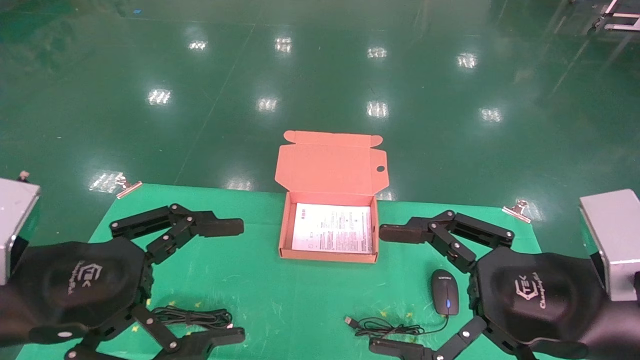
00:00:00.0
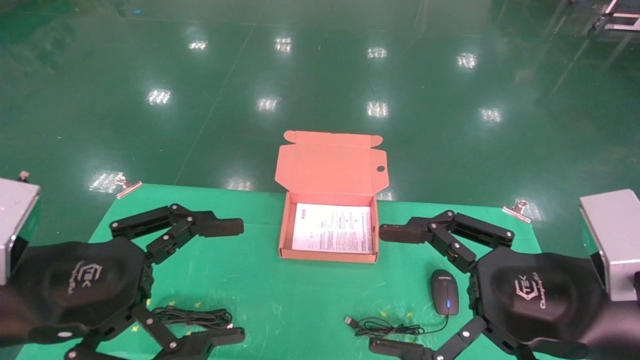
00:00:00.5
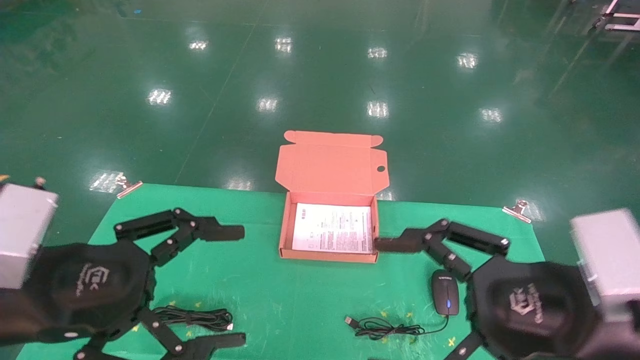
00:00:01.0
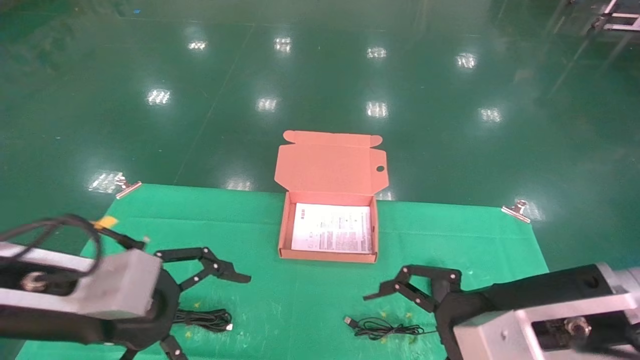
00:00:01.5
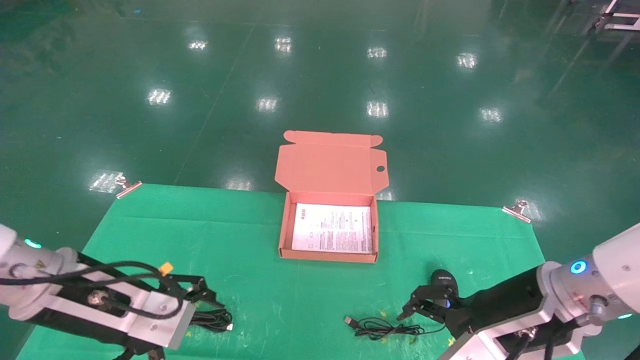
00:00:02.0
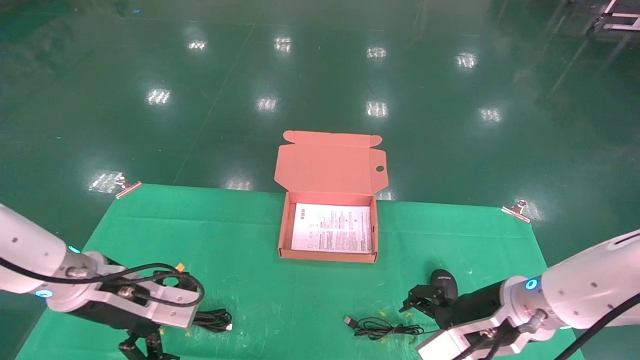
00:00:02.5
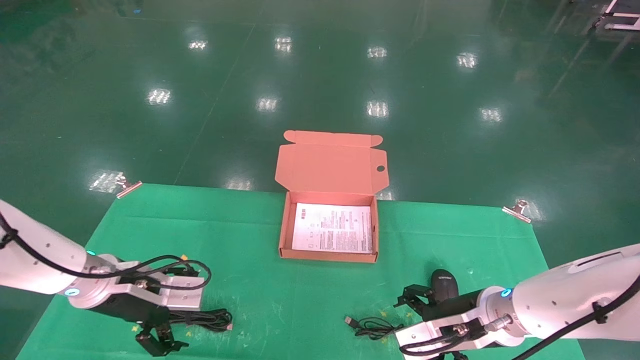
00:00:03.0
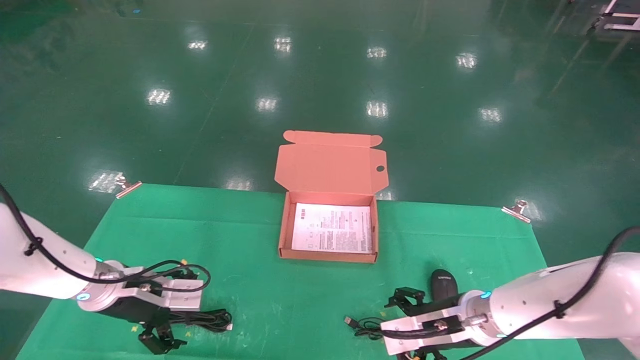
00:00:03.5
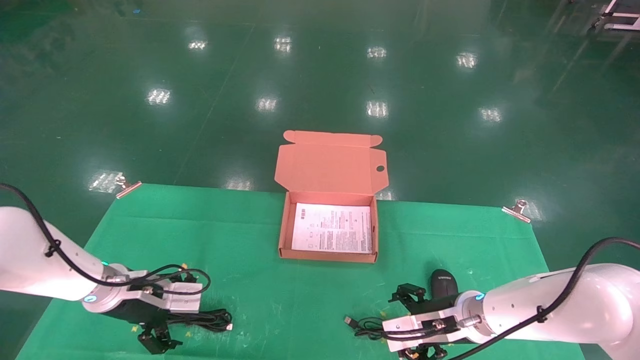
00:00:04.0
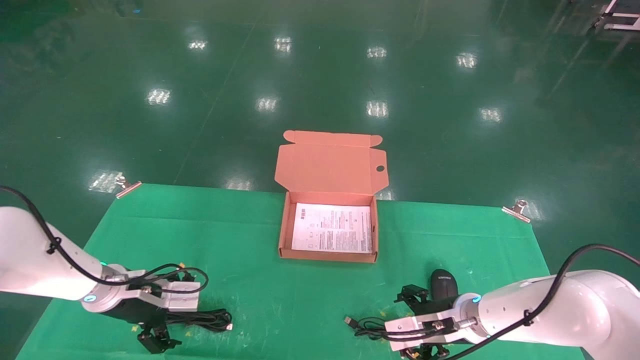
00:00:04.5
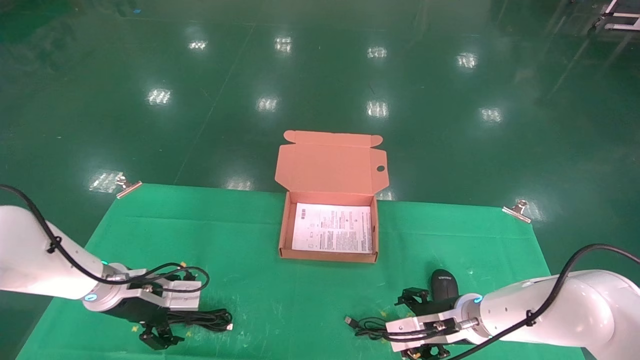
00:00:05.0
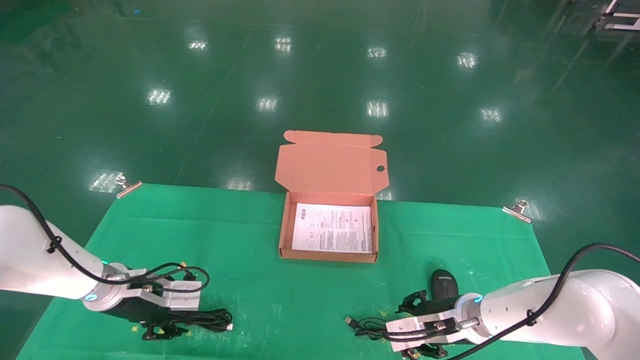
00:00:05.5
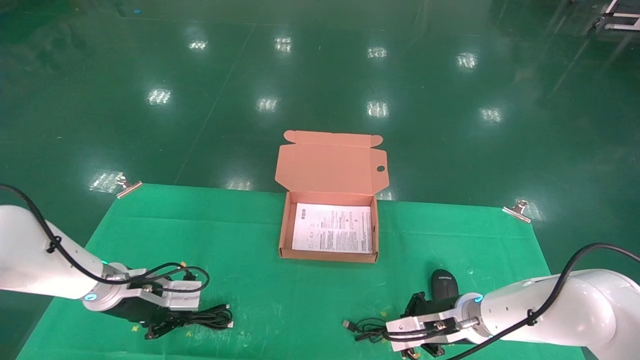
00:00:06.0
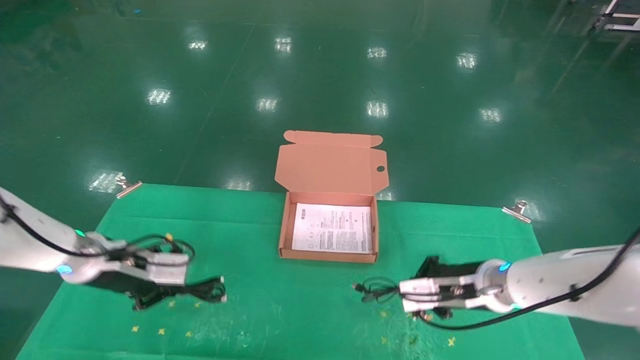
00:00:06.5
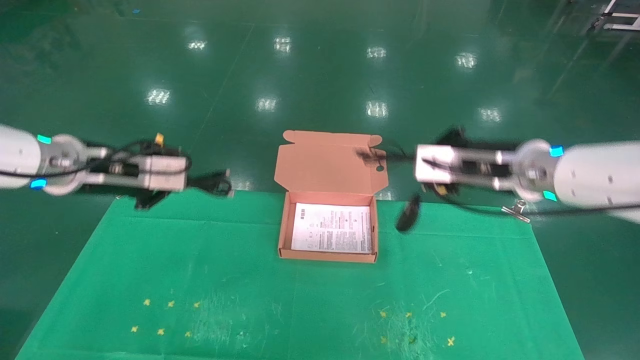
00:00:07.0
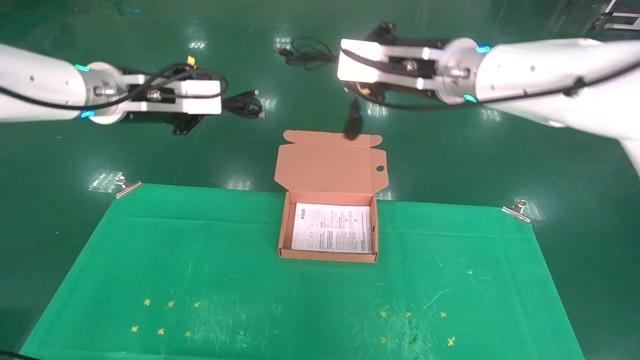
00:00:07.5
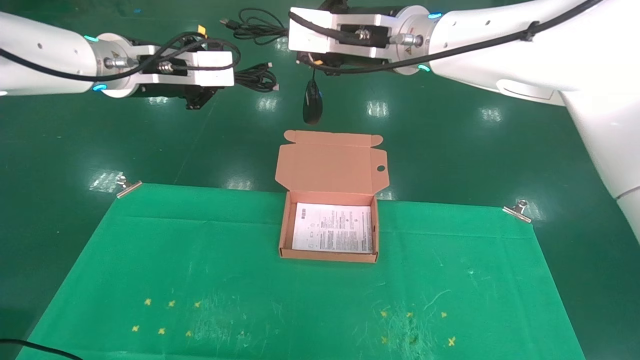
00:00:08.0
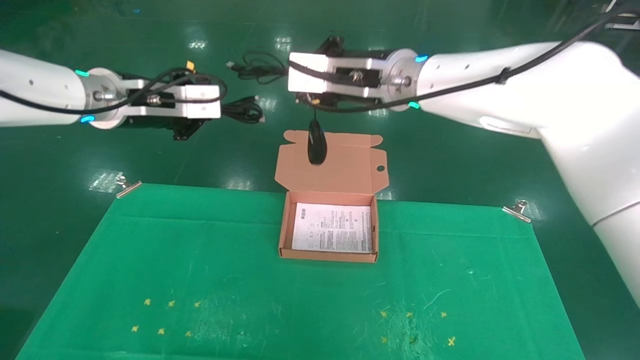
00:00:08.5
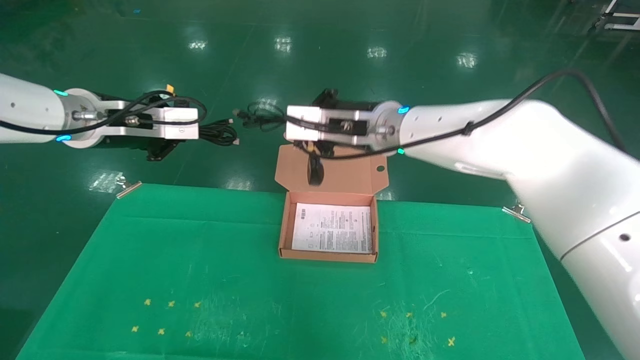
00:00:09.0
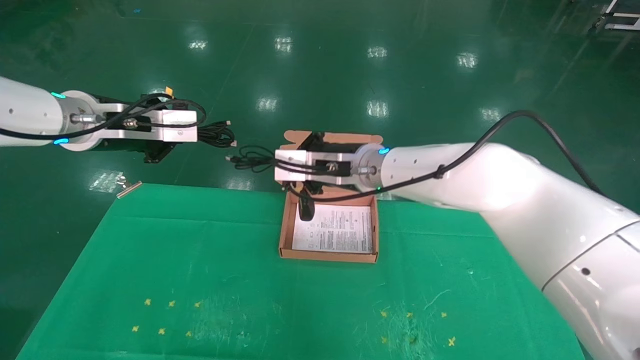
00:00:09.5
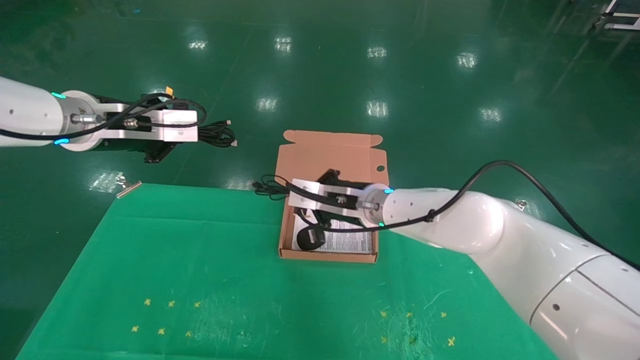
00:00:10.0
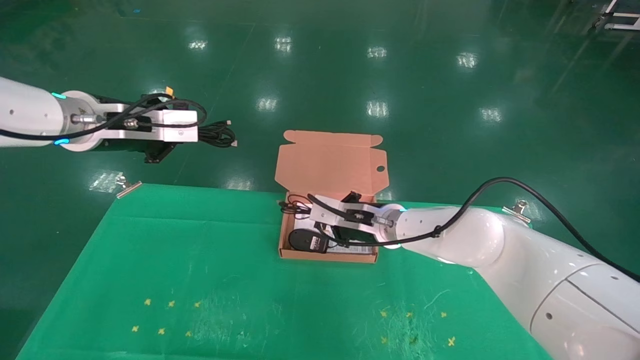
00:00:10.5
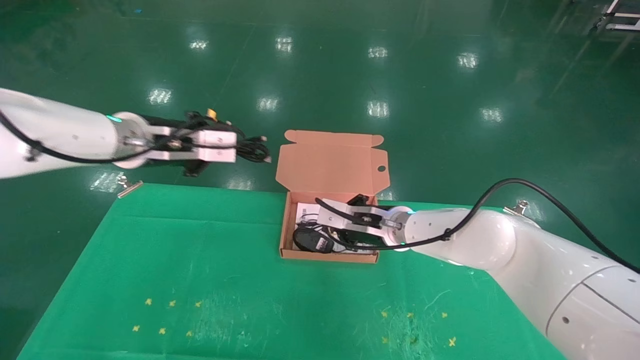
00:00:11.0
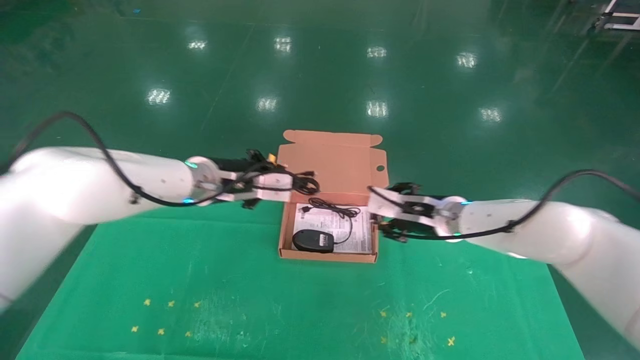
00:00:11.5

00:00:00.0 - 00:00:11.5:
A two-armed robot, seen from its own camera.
Task of the whole recording: grasp data cable left put into box grasp mouse right put into box.
Step, 00:00:01.5 - 00:00:06.0: Grab and pick up both the mouse and power cord from the accessory packaging area at the same time.
00:00:00.0 - 00:00:02.0: The grippers both shift forward by some 10 cm.
00:00:02.0 - 00:00:04.0: The left gripper heads forward and downward, covering roughly 15 cm. Meanwhile the right gripper moves downward and forward, roughly 15 cm.
00:00:04.0 - 00:00:06.0: The right gripper closes. The left gripper closes.
00:00:06.0 - 00:00:07.5: Both grippers move upward, about 30 cm.
00:00:07.5 - 00:00:09.5: The right gripper shifts some 15 cm downward and to the left.
00:00:09.5 - 00:00:11.5: The left gripper travels to the right, downward and forward by roughly 15 cm. Meanwhile the right gripper is displaced to the right and downward by approximately 15 cm, and opens up.

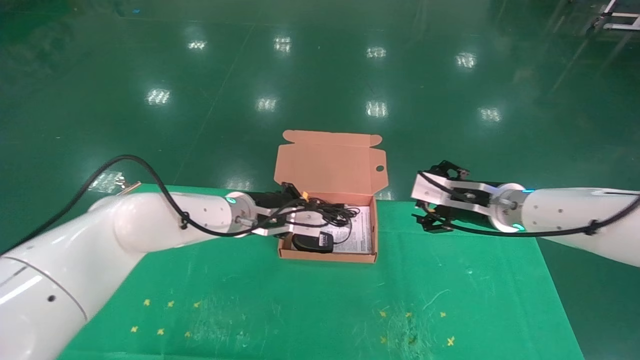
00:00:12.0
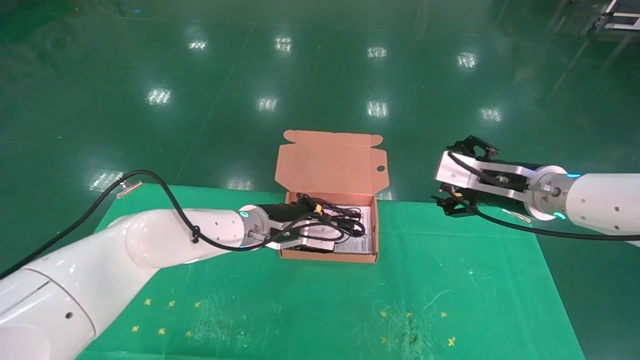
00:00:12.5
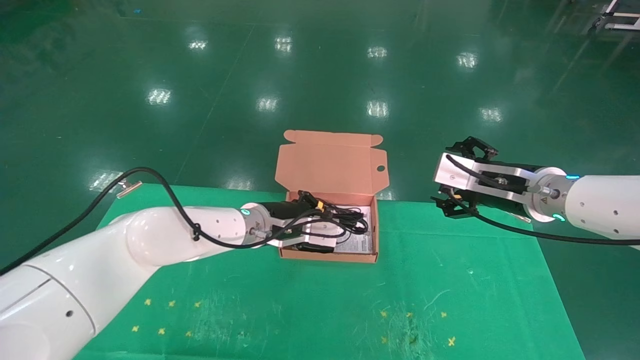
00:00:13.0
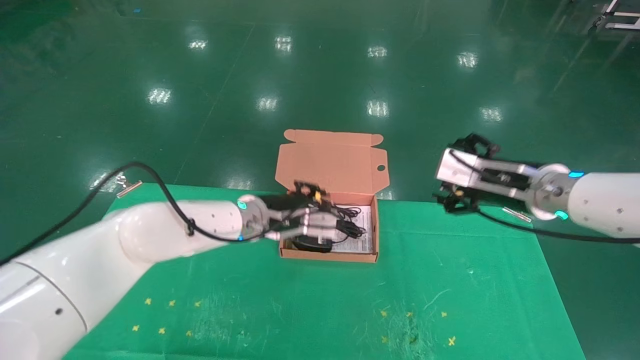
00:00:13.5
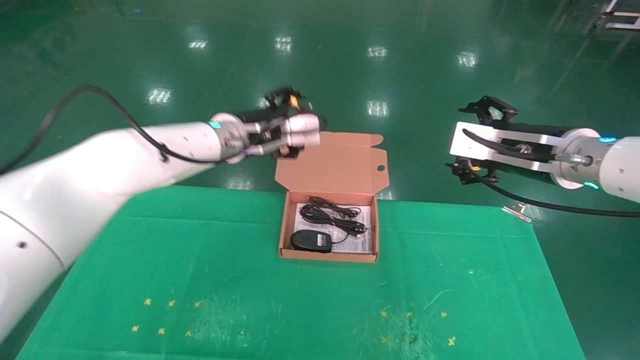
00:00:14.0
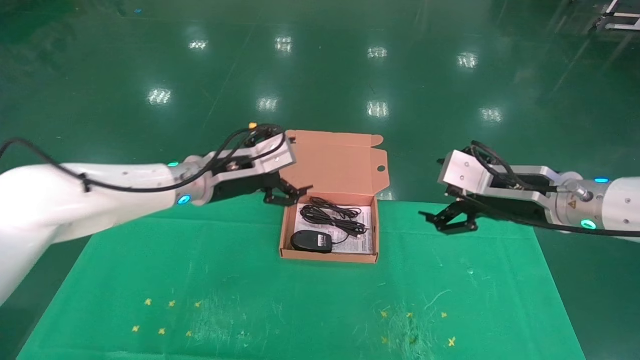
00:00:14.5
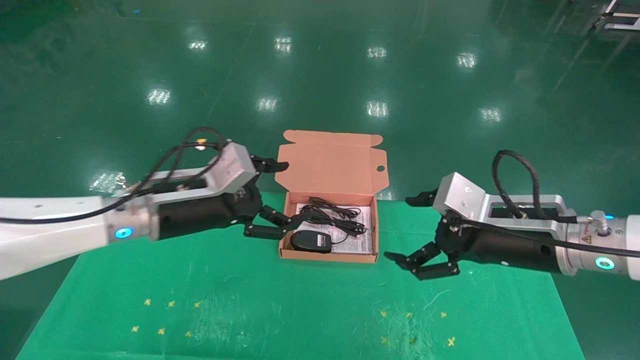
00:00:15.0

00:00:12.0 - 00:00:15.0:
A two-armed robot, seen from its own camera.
Task of the whole recording: grasp data cable left put into box grasp mouse right put into box.
00:00:12.0 - 00:00:13.5: The right gripper shifts some 5 cm upward.
00:00:13.5 - 00:00:15.0: The left gripper is displaced to the left and backward by roughly 15 cm, and opens its fingers; the right gripper heads backward, covering approximately 5 cm.
